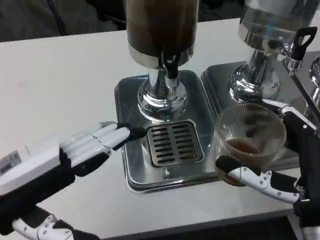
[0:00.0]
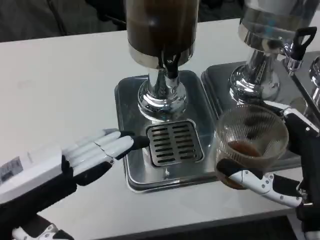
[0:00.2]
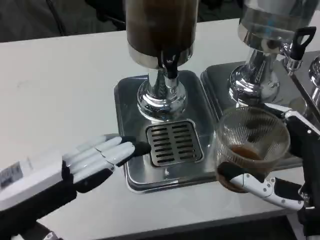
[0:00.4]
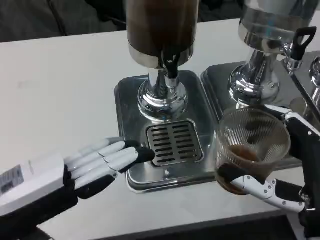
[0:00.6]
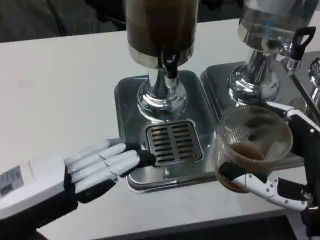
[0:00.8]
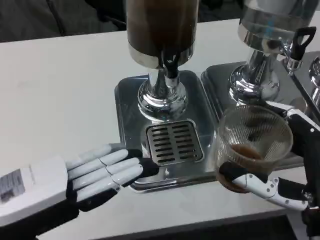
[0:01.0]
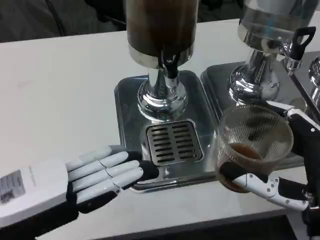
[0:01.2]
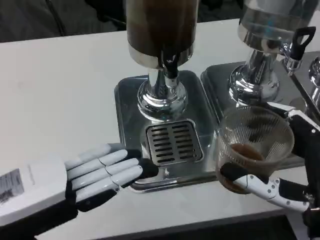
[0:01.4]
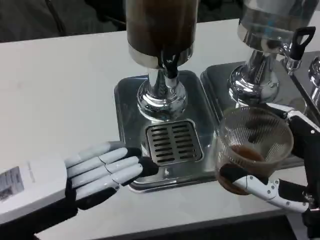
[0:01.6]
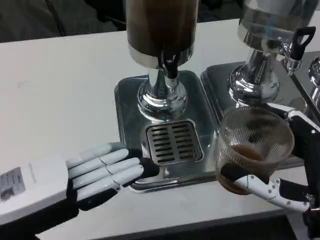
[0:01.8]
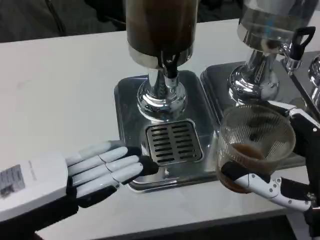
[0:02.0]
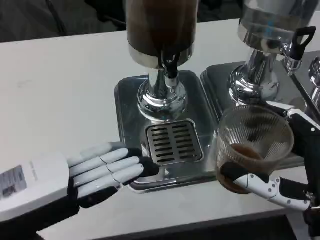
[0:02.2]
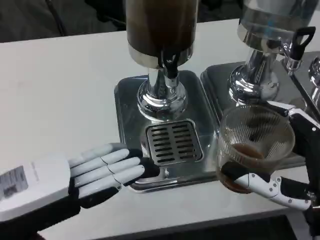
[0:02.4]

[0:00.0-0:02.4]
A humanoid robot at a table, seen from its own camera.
Task of the whole recording: Grasp the cup under the faucet to collect the drink, then remove the cup.
0:00.0 to 0:01.2: The hands move only a little.
0:01.2 to 0:02.4: Neither hand changes place.
